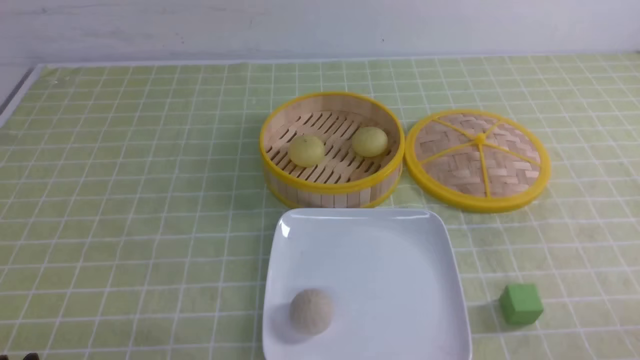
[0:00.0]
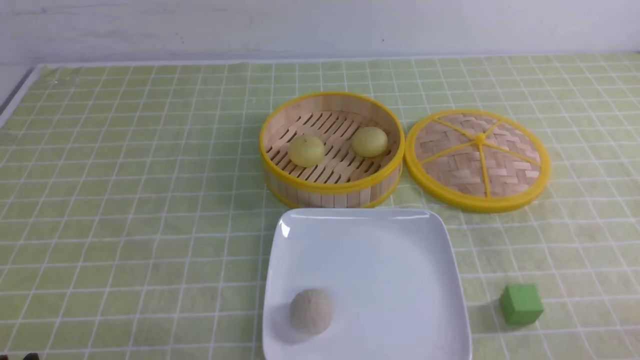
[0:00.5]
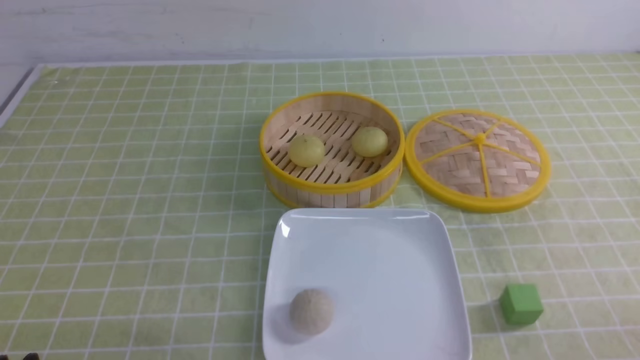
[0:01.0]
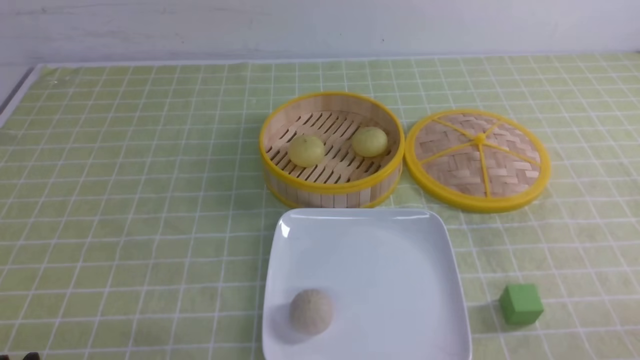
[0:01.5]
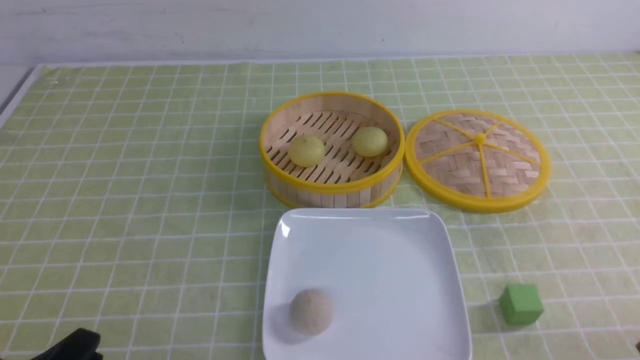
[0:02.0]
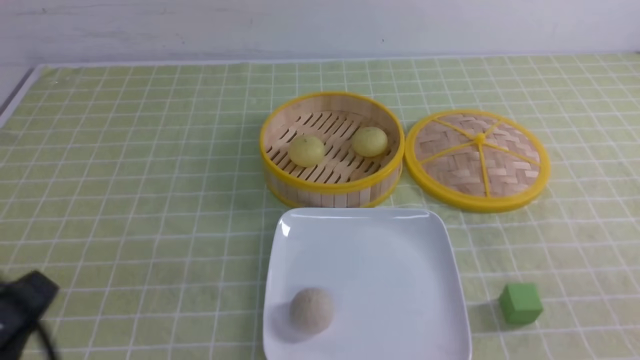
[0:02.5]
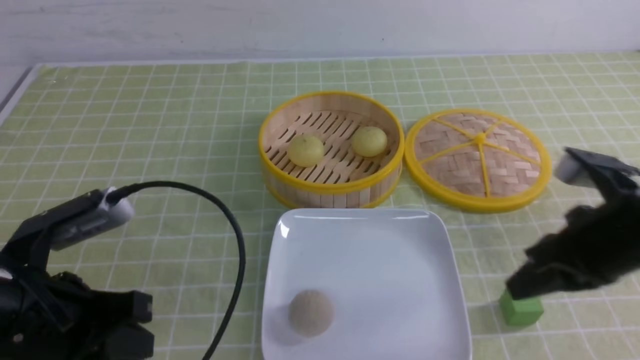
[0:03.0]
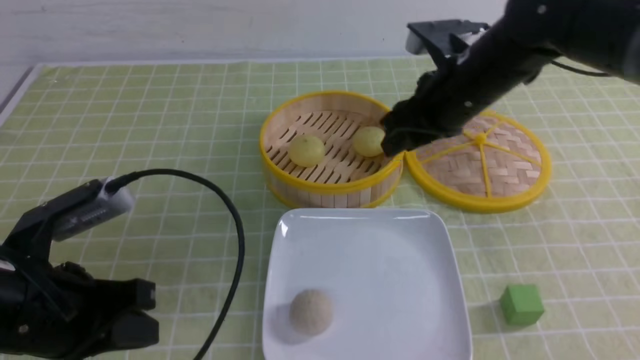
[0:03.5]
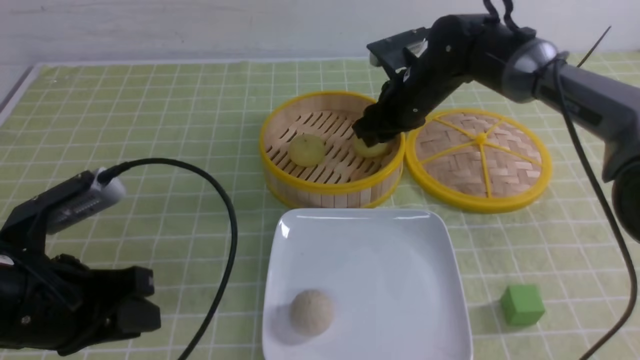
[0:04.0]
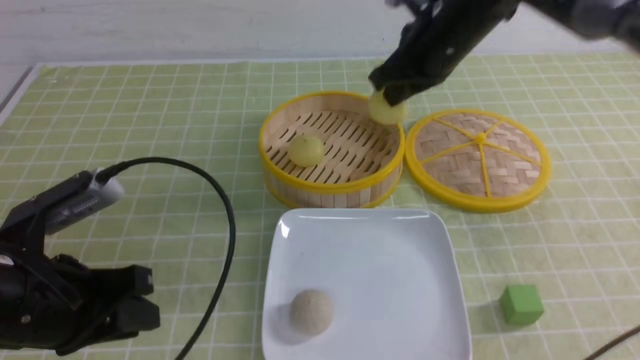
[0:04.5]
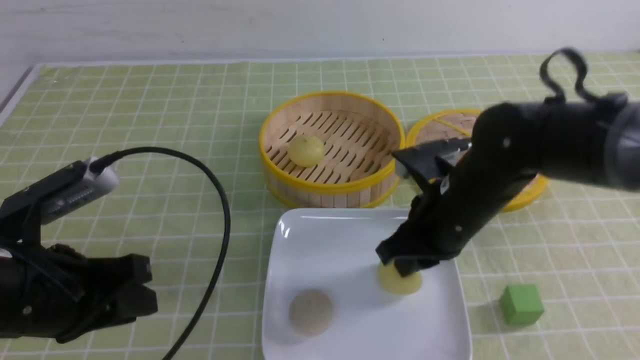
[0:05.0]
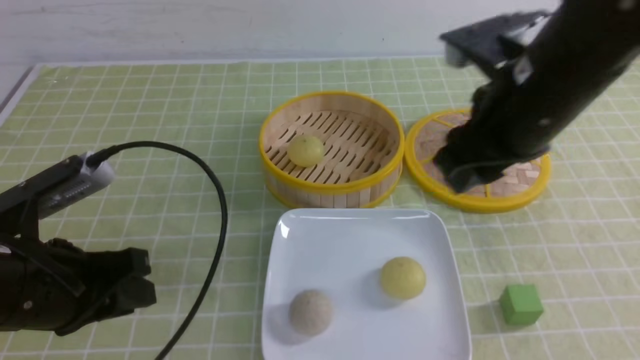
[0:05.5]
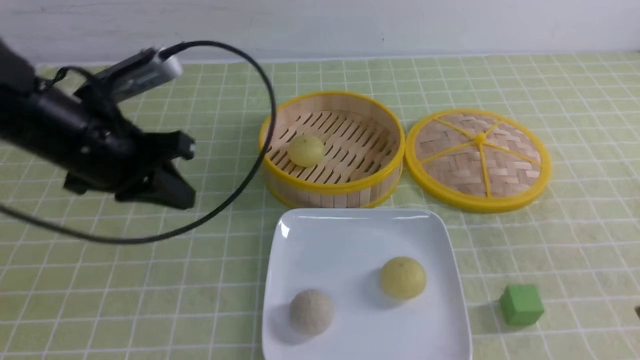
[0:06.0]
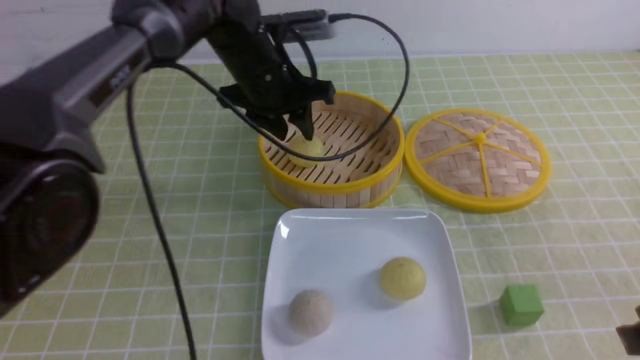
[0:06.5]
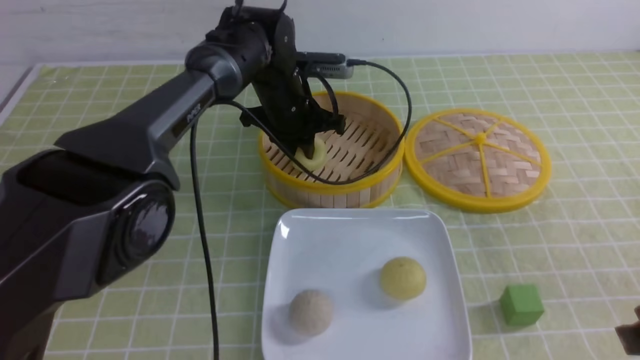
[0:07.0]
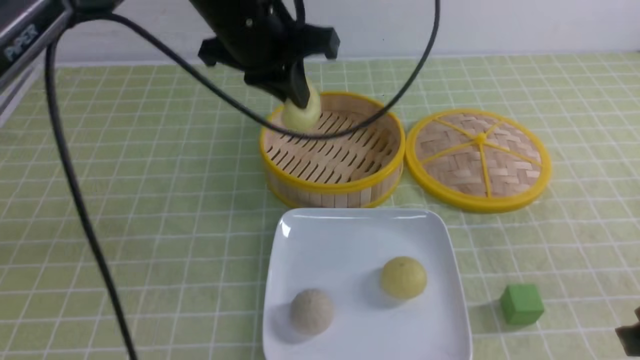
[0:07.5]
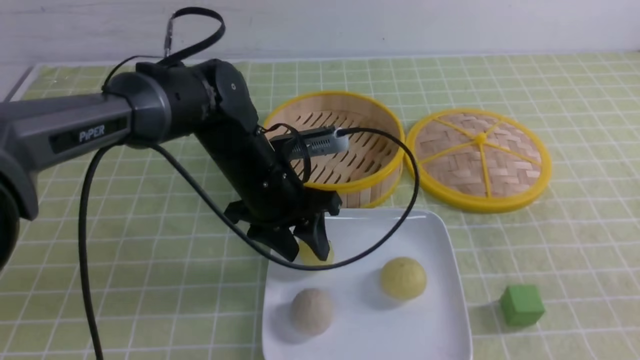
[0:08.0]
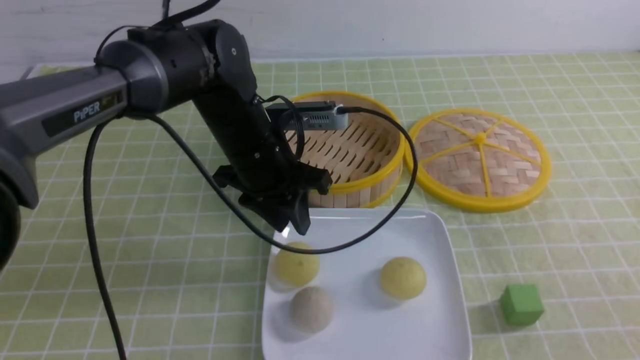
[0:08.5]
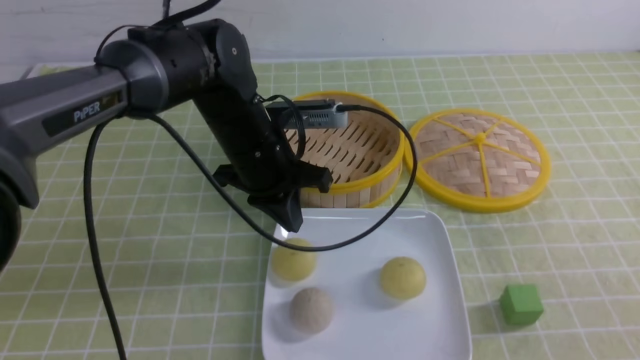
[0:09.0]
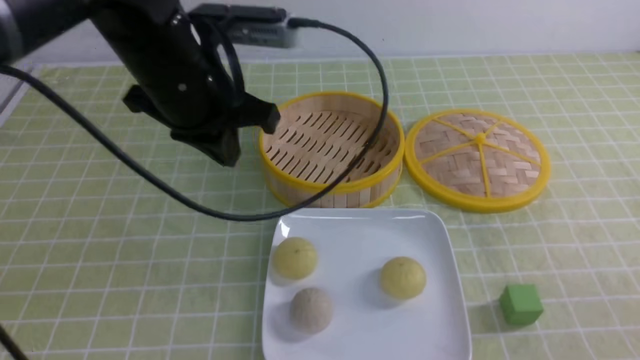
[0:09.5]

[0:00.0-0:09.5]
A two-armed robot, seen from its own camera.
Step, 0:00.0 to 0:04.0: use the right arm to grab the steamed stuffed bun that is closest to it.
Step, 0:04.5 to 0:05.0: use the right arm to put the steamed stuffed bun into the plate.
Step, 0:05.5 to 0:07.0: use the left arm to grab the steamed stuffed bun that is closest to it.
Step, 0:07.5 to 0:08.0: use the left arm to put the steamed stuffed bun into the plate.
0:02.0 to 0:04.0: The left gripper heads forward and upward, covering some 15 cm, and closes and opens again. Meanwhile the right gripper goes roughly 50 cm forward and to the left, and closes, then reopens.
0:04.0 to 0:05.5: The right gripper shifts some 25 cm backward and upward, and closes, then reopens.
0:05.5 to 0:07.5: The right gripper travels backward, to the right and downward by some 20 cm, and closes its fingers, while the left gripper goes about 25 cm forward and to the right, and opens and closes again.
0:07.5 to 0:09.5: The right gripper is displaced backward and downward by about 10 cm, while the left gripper shifts about 10 cm backward and to the left, reaches some 10 cm downward, then returns, and opens, then closes once more.

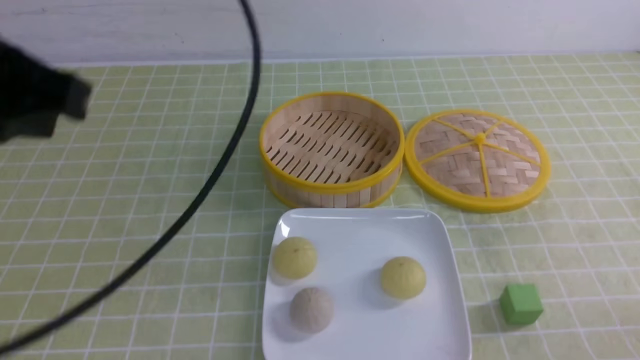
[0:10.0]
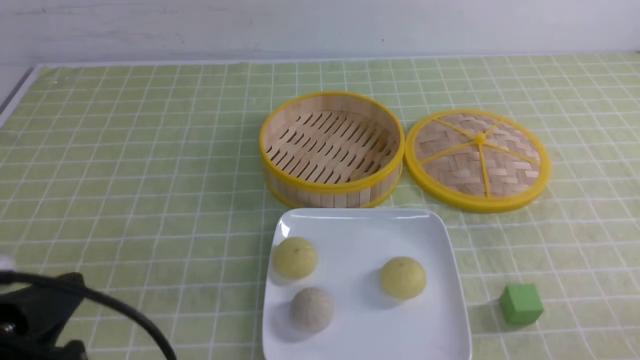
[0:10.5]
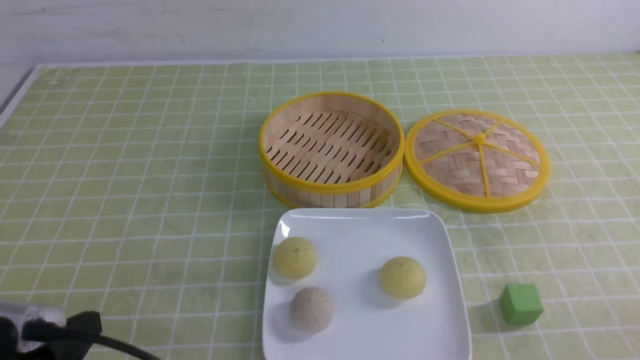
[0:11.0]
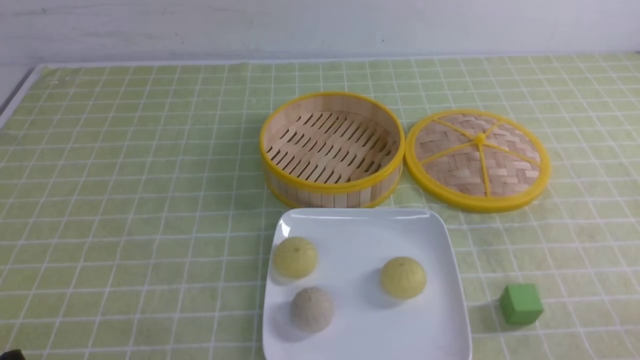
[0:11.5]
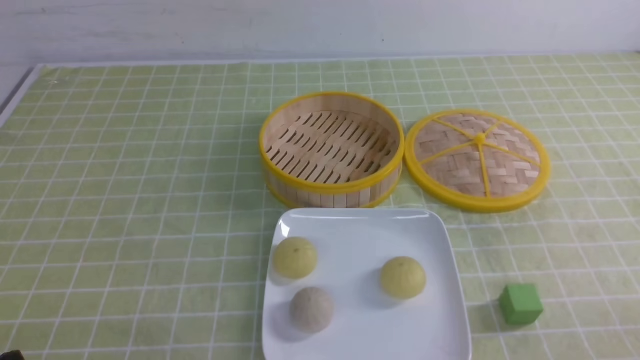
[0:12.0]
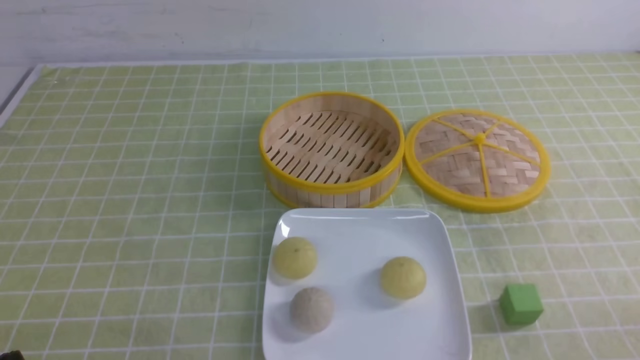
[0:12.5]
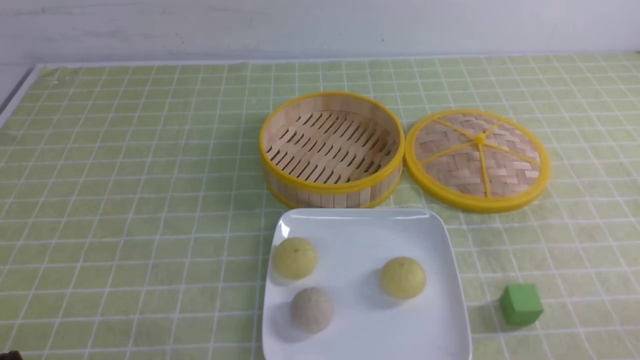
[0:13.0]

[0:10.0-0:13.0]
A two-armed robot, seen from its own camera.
0:10.0 to 0:11.5: The left gripper is displaced downward and backward by approximately 25 cm.
0:11.5 to 0:13.0: The two grippers keep their place.
